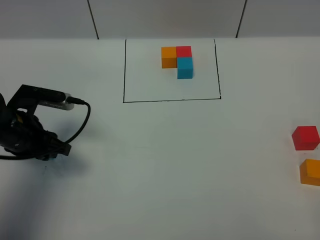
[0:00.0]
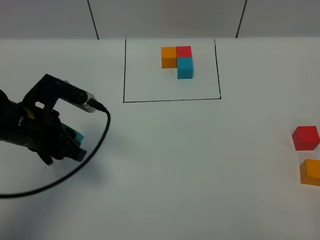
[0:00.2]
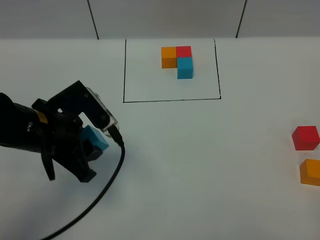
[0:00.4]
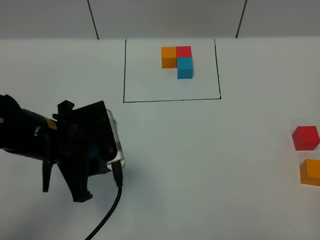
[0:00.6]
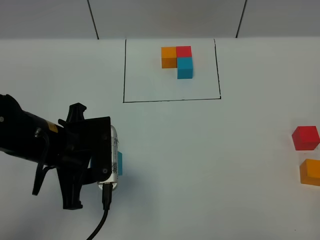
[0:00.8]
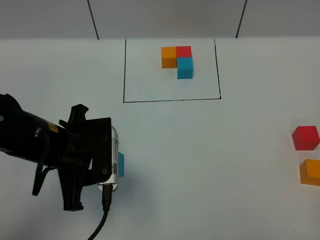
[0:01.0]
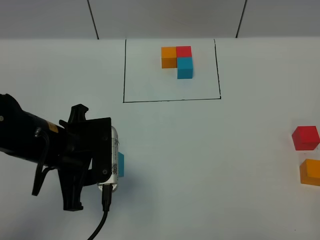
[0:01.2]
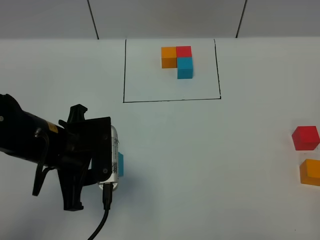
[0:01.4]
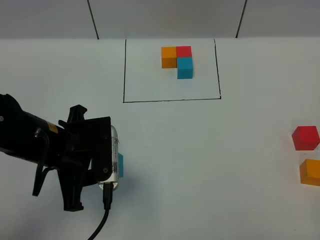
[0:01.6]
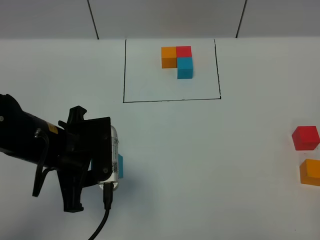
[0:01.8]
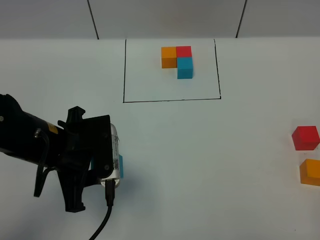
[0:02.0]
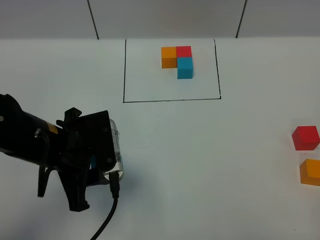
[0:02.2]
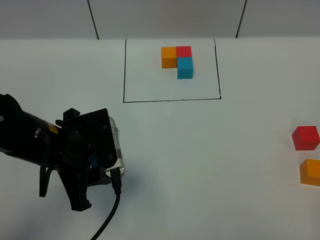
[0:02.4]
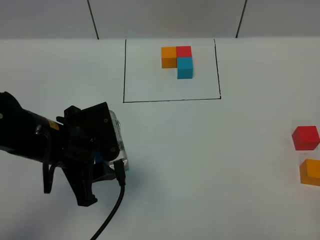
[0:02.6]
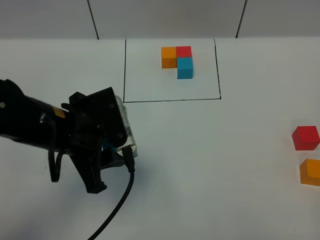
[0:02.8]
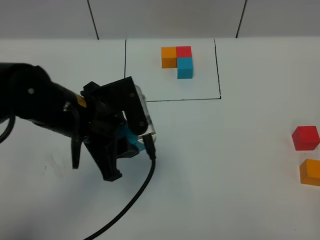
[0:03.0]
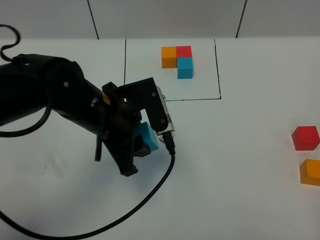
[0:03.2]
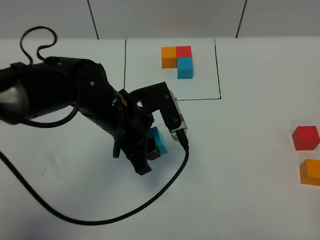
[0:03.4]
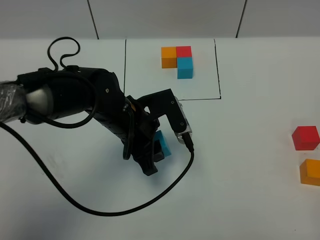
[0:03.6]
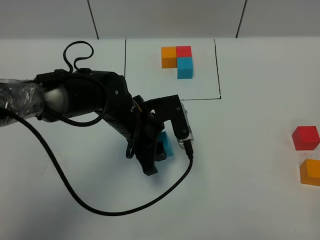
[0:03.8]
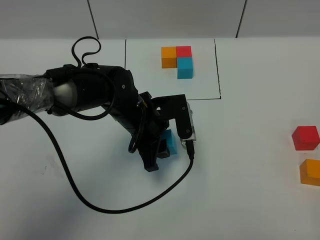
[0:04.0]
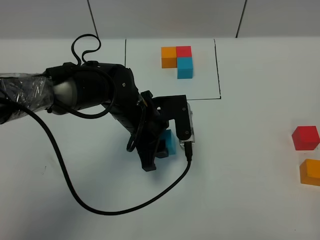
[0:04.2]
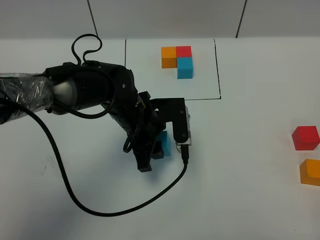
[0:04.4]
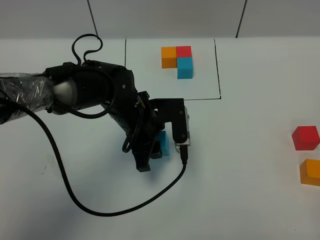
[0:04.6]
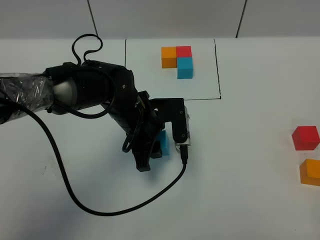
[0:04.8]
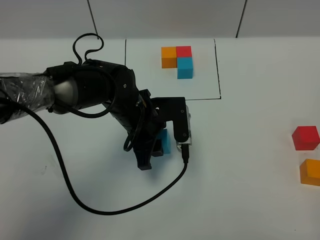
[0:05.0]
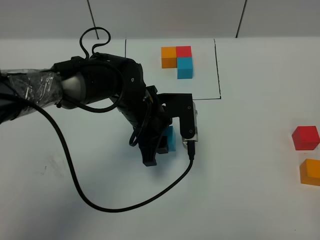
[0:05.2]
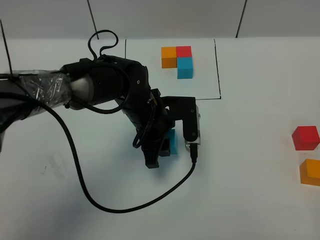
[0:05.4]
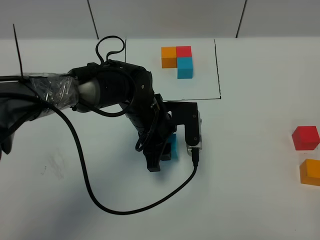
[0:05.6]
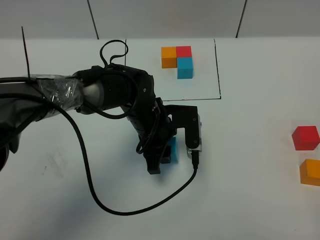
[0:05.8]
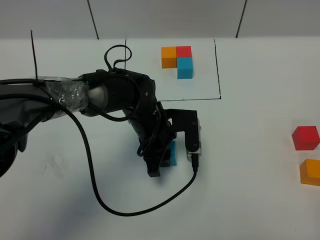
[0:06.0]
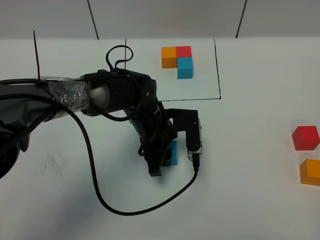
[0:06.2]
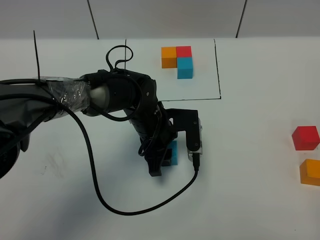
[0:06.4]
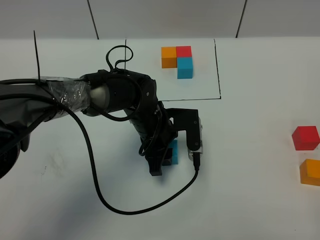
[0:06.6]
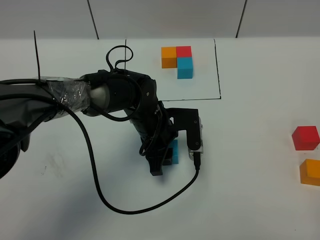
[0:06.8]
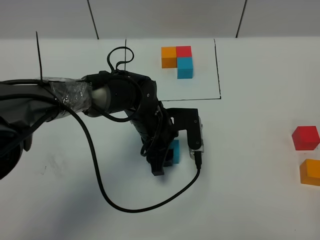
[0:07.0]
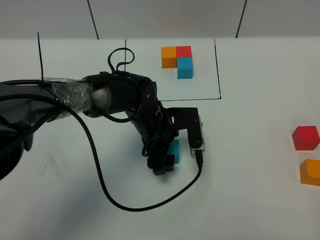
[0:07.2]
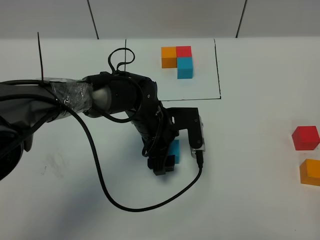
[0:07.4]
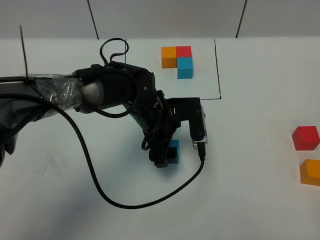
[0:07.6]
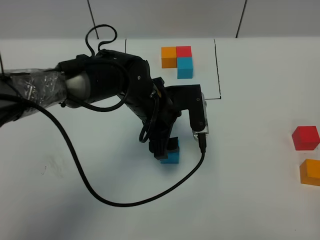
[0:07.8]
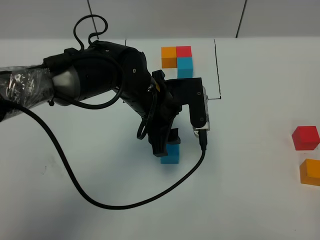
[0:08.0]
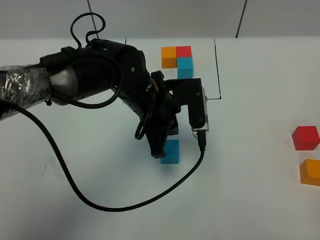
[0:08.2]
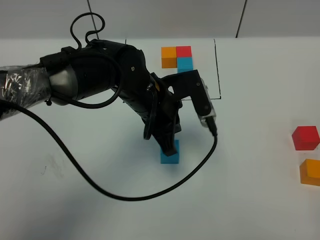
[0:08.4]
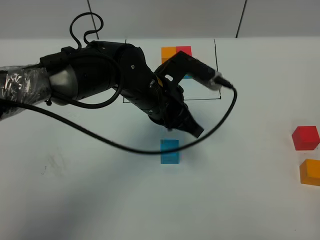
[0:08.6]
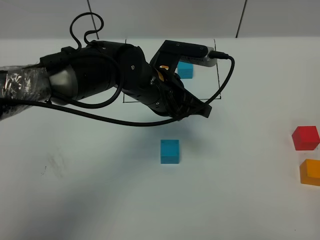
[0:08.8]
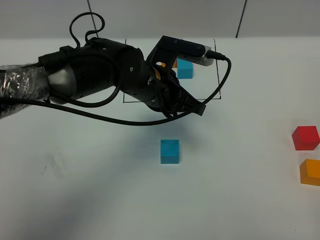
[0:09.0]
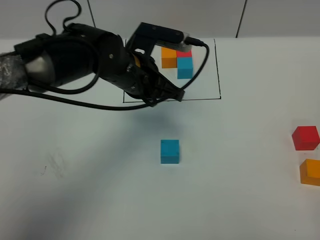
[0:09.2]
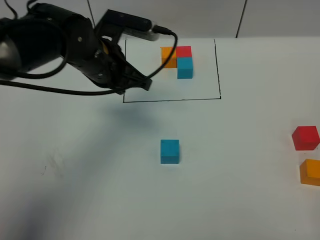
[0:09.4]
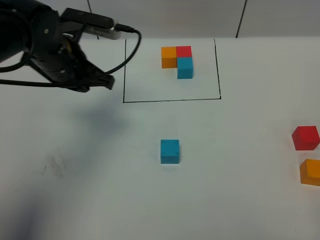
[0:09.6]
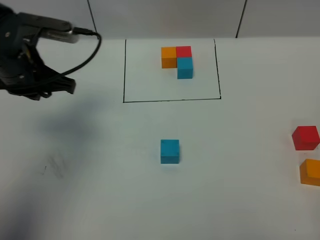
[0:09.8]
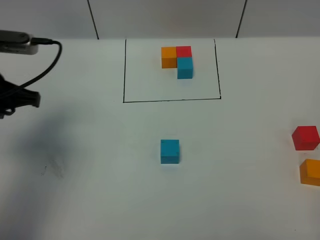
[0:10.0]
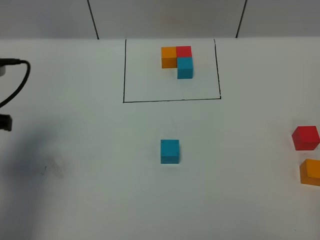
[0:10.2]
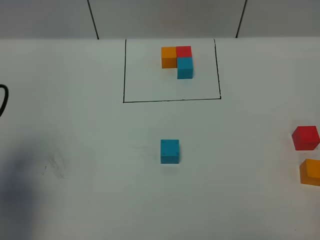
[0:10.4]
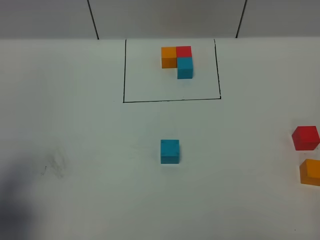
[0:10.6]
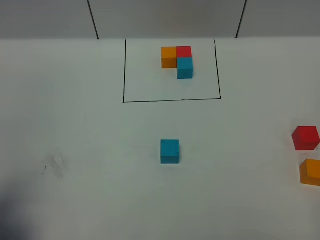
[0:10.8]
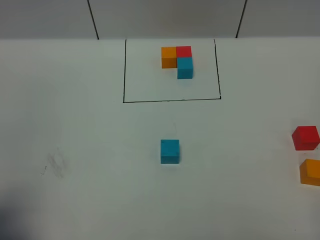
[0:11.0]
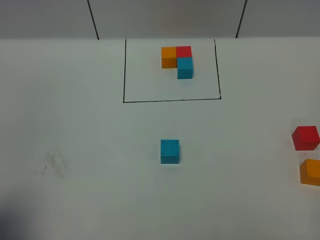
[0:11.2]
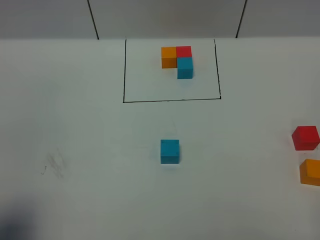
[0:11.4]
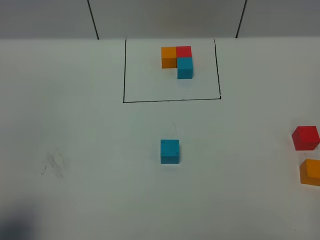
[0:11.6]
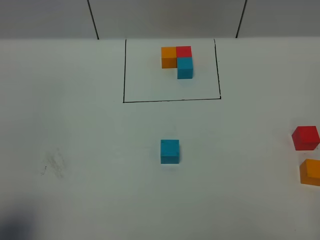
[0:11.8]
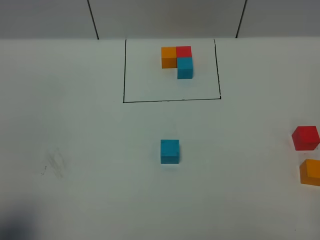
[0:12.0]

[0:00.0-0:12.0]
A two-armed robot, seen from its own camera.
Task of the whole recording: According to the building block template in front, assemble the scattered blocks together.
Step, 0:00.0 to 0:07.4: Put the blue cube in the center of the table.
0:00.0 to 0:01.6: The left gripper moves to the right, backward and upward, some 10 cm.
0:01.6 to 0:03.0: The left gripper ends up approximately 5 cm from where it was.
0:03.0 to 0:04.4: The left gripper goes approximately 15 cm downward, forward and to the right.
0:04.4 to 0:06.0: The grippers move only a little.
0:06.0 to 0:07.6: The left gripper opens its fingers.
0:07.6 to 0:09.0: The left gripper shifts about 5 cm upward, and closes.
0:09.0 to 0:10.4: The left gripper heads to the left and backward, covering about 30 cm.
0:10.4 to 0:12.0: The left gripper shifts about 10 cm backward.

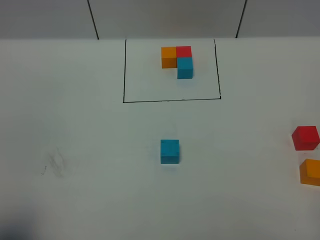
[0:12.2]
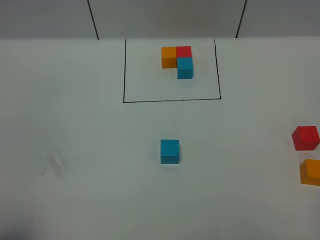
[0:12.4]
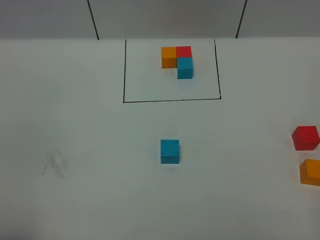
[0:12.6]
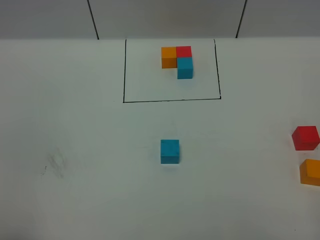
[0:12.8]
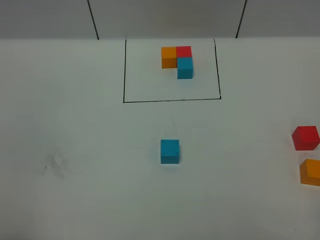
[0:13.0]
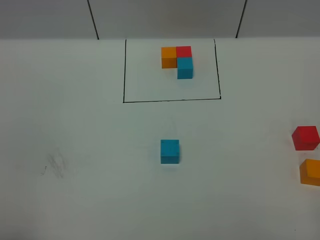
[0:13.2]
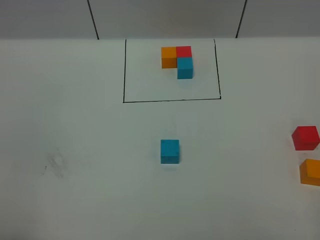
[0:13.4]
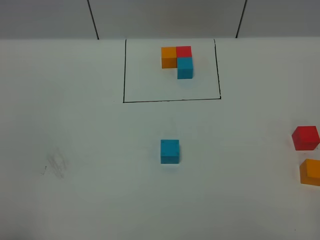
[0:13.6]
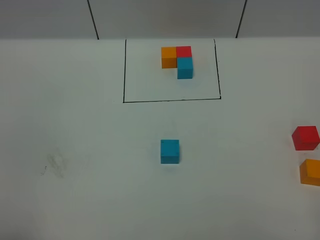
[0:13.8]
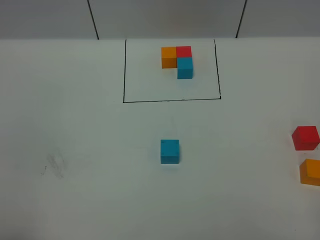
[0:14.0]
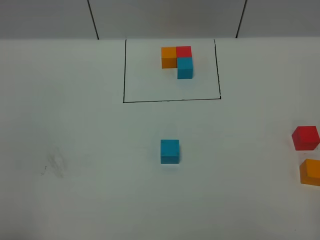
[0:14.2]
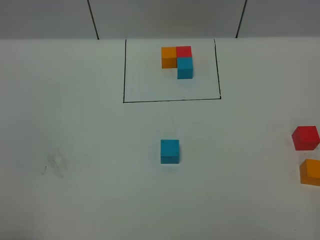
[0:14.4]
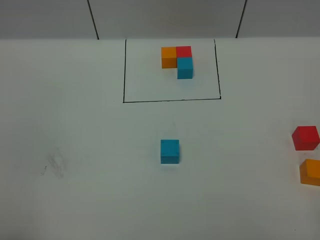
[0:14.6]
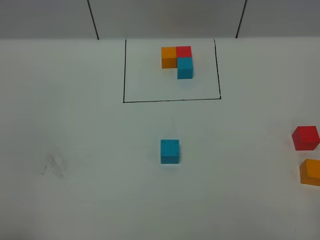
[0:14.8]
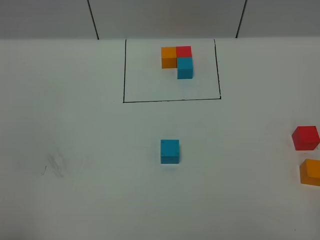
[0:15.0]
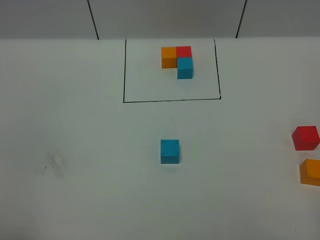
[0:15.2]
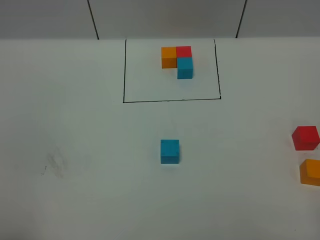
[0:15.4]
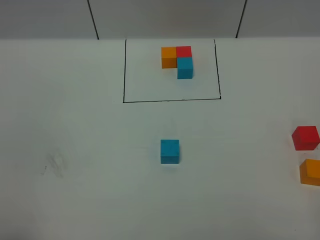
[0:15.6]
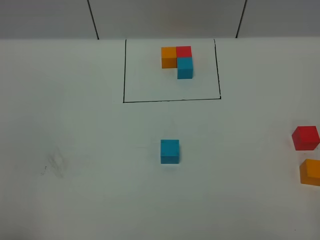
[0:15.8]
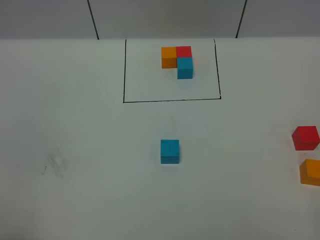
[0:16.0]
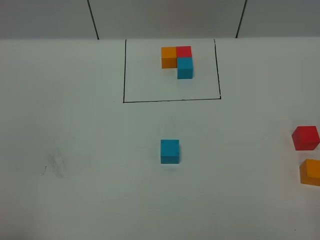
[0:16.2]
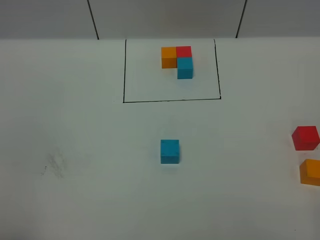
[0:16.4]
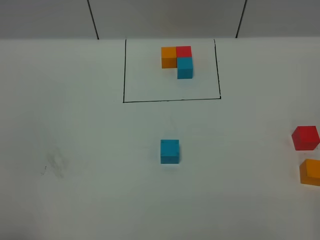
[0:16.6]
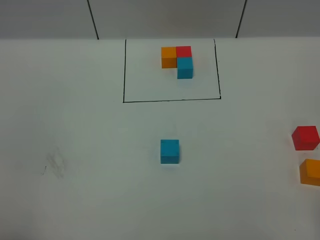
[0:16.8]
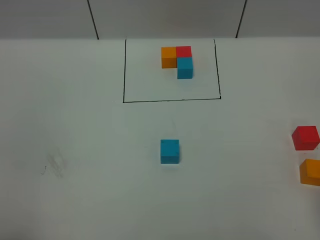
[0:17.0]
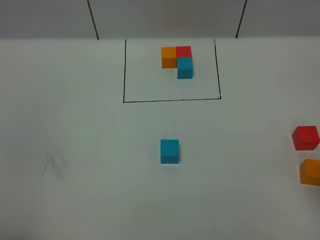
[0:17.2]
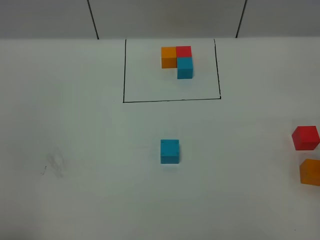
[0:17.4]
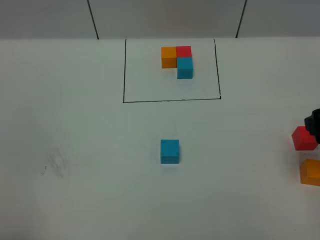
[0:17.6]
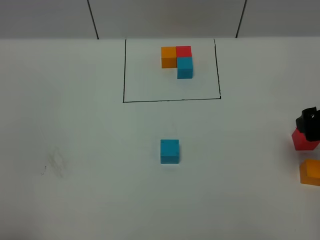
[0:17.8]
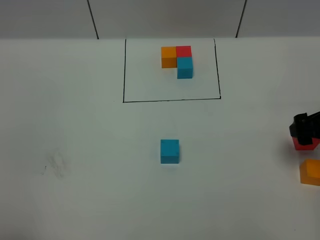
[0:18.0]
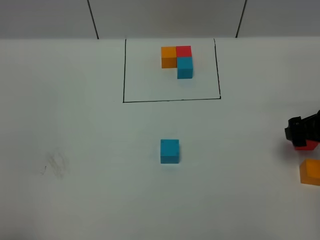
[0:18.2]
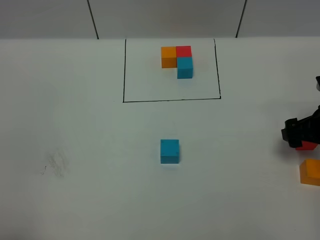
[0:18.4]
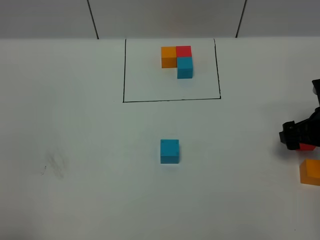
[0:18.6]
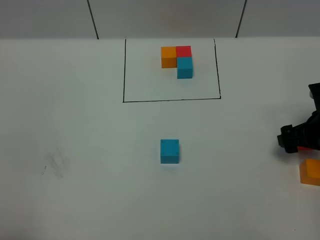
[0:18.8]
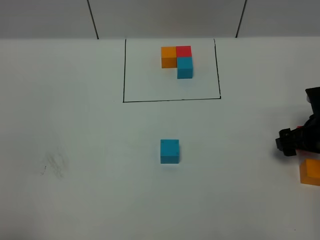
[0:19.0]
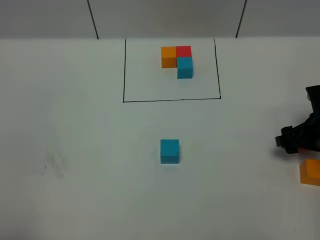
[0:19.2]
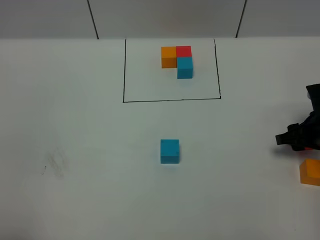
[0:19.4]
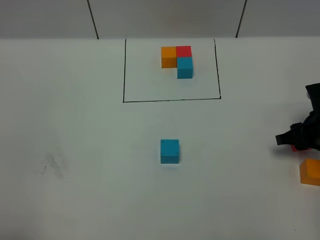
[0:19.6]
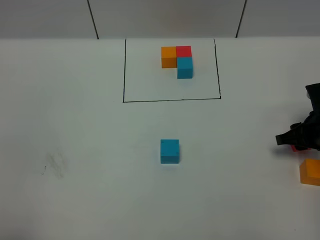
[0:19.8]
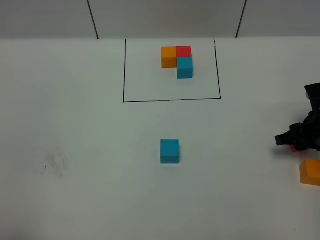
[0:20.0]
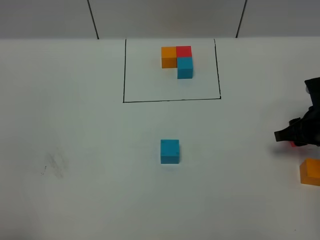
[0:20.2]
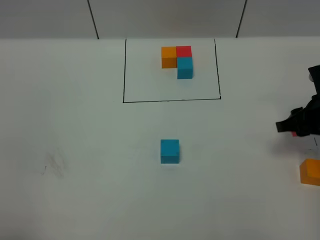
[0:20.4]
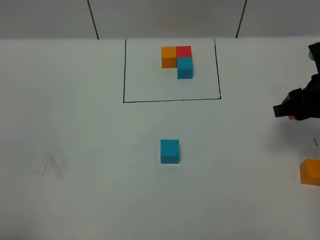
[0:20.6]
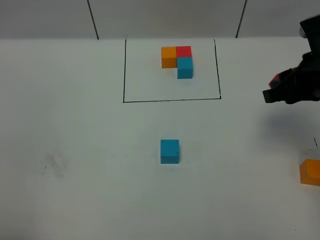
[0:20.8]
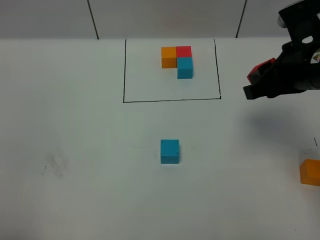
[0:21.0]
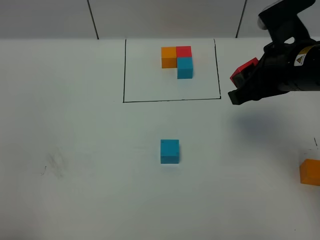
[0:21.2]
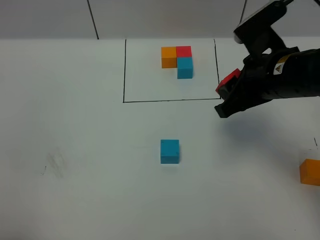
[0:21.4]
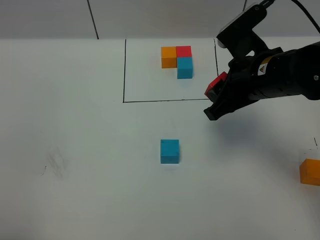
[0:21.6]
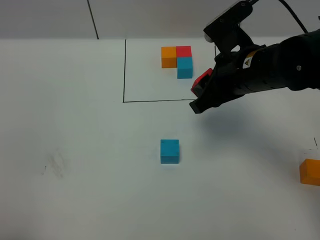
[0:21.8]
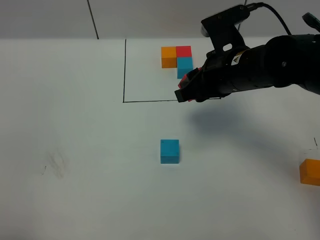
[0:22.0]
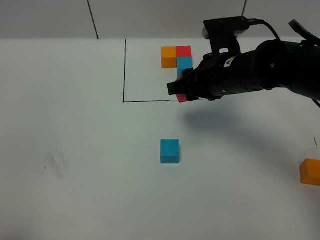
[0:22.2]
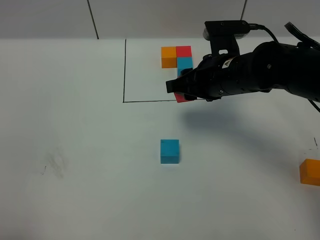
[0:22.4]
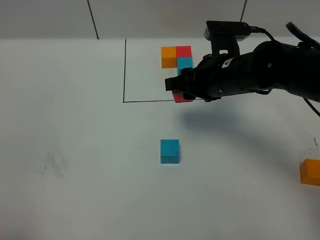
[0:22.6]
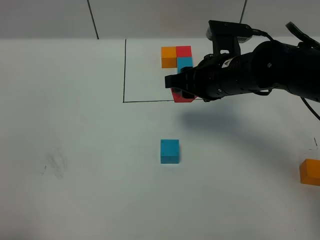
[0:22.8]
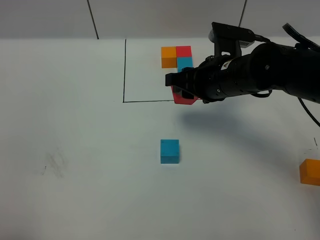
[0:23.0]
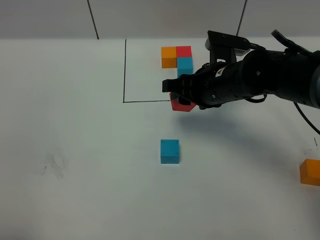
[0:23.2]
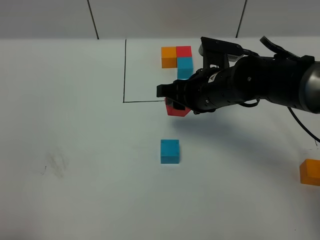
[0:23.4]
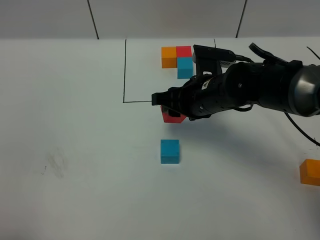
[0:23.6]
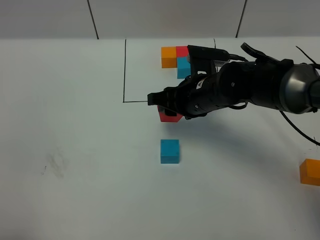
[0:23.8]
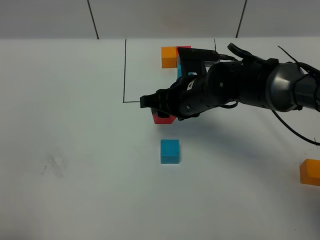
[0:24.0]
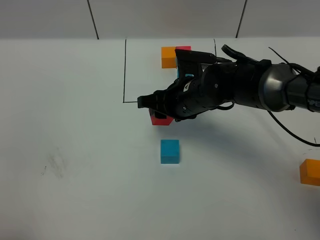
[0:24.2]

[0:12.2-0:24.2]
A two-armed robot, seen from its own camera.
Task of the whole recording: According to the building block template in front, assemble the scattered blocks together.
0:13.8 to 0:15.2: Neither gripper changes place.
0:16.6 to 0:18.2: The right gripper heads forward and downward, covering approximately 30 cm.
0:18.2 to 0:19.8: The right gripper moves roughly 5 cm, and closes.
0:19.8 to 0:21.2: The right gripper shifts some 20 cm upward and to the left.
0:21.2 to 0:22.6: The right gripper travels to the left and downward by approximately 10 cm.
0:22.6 to 0:24.2: The right gripper shifts about 10 cm downward and to the left.
